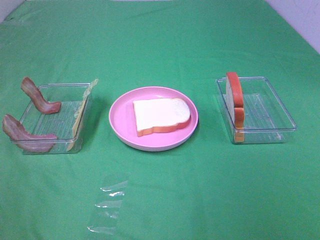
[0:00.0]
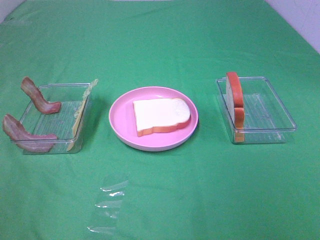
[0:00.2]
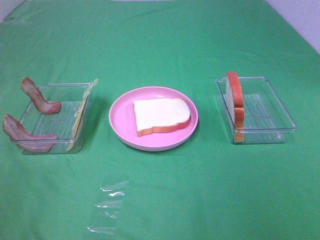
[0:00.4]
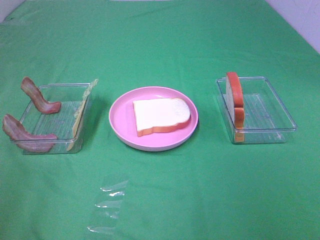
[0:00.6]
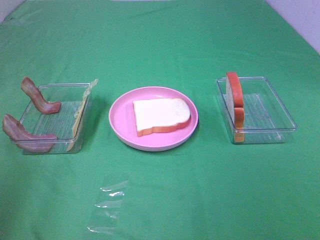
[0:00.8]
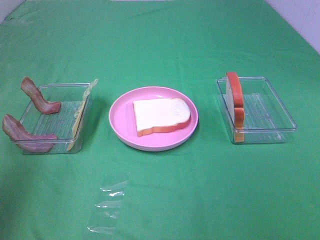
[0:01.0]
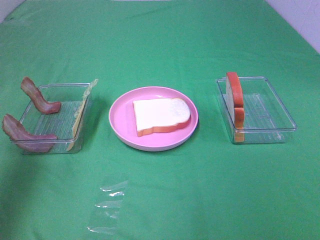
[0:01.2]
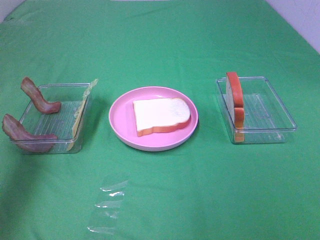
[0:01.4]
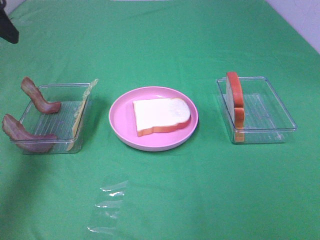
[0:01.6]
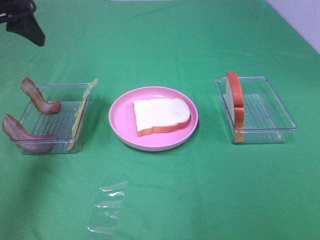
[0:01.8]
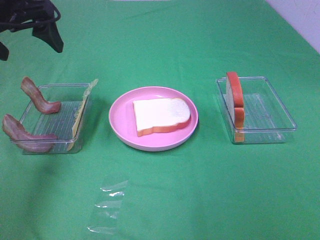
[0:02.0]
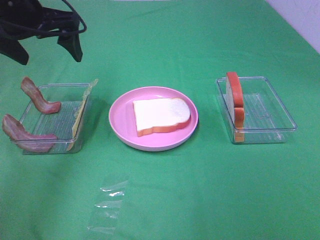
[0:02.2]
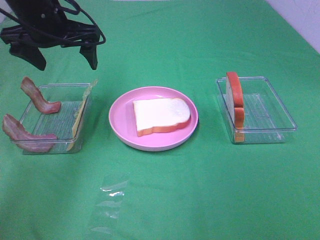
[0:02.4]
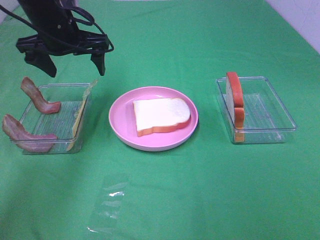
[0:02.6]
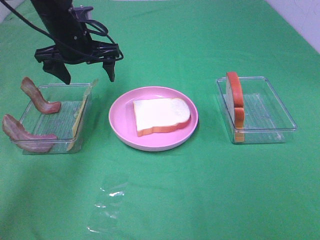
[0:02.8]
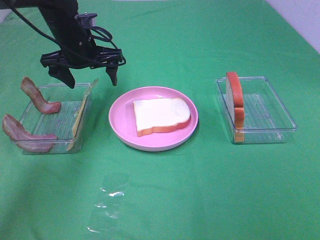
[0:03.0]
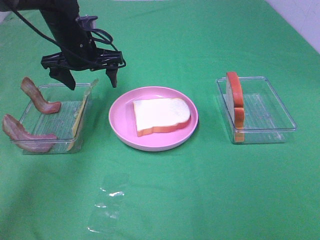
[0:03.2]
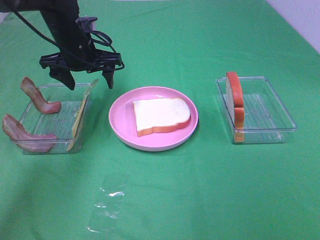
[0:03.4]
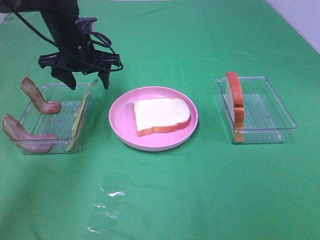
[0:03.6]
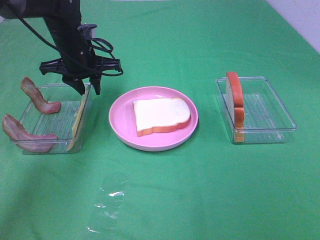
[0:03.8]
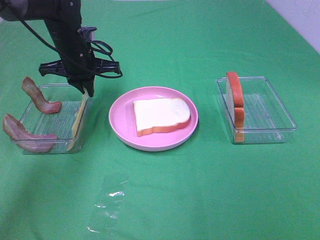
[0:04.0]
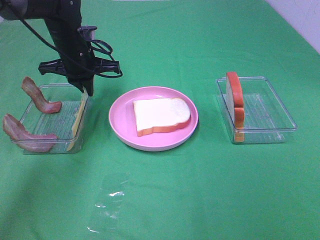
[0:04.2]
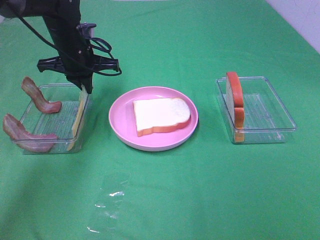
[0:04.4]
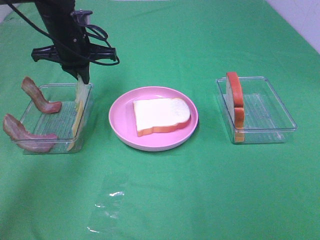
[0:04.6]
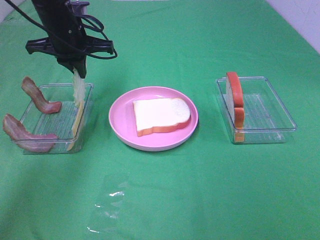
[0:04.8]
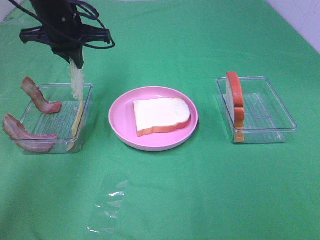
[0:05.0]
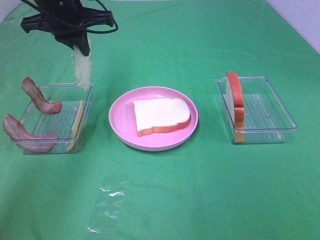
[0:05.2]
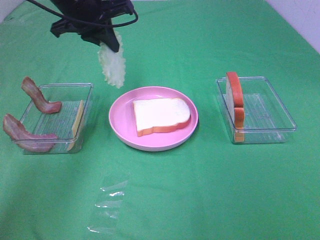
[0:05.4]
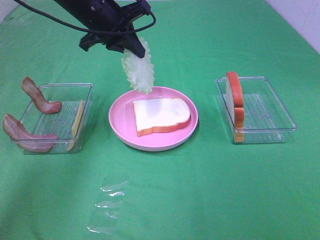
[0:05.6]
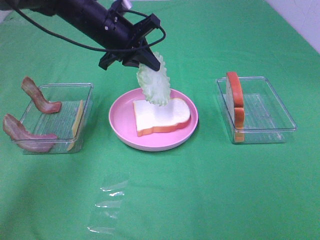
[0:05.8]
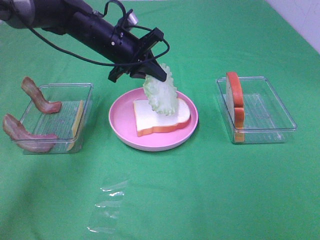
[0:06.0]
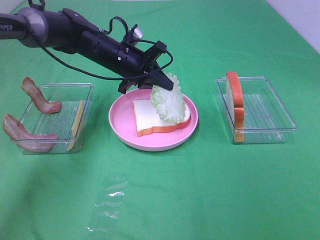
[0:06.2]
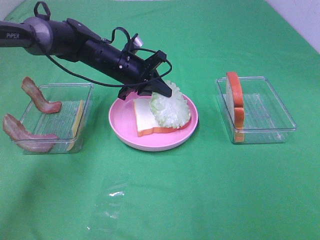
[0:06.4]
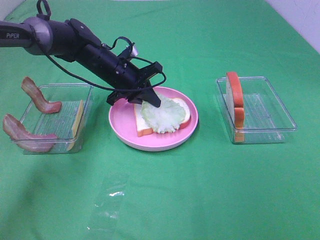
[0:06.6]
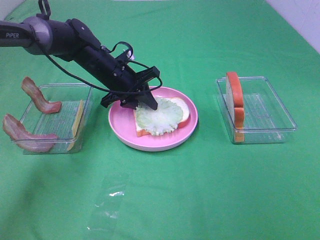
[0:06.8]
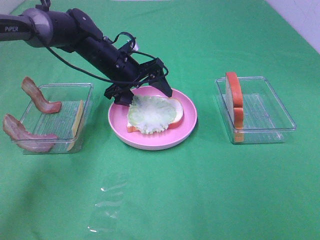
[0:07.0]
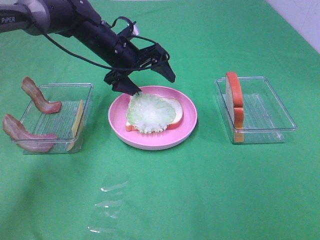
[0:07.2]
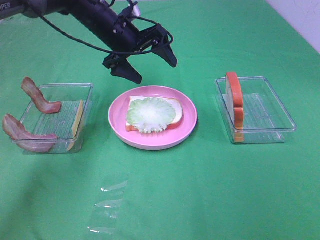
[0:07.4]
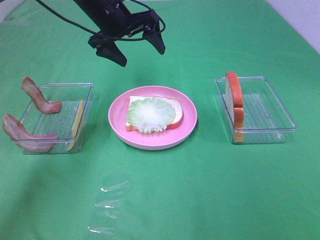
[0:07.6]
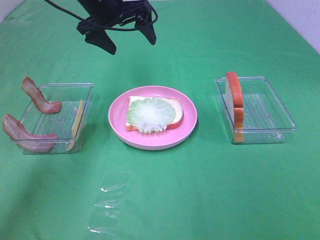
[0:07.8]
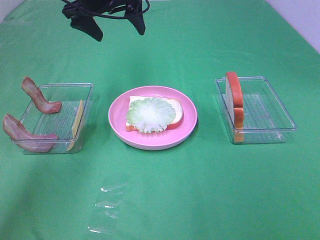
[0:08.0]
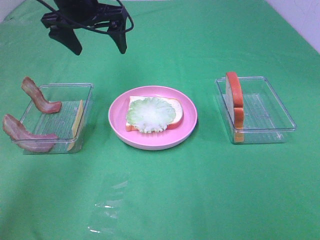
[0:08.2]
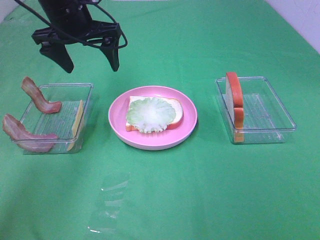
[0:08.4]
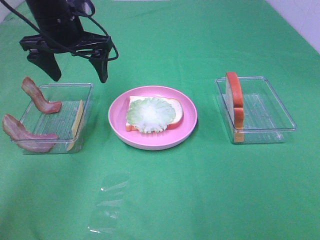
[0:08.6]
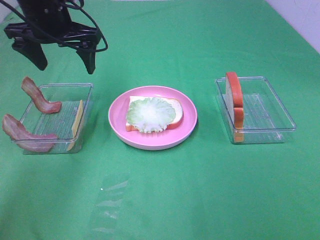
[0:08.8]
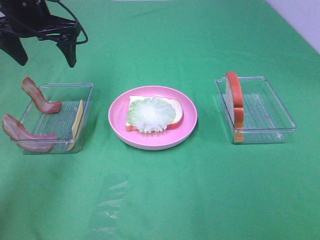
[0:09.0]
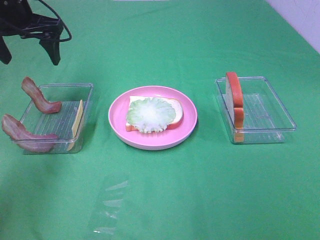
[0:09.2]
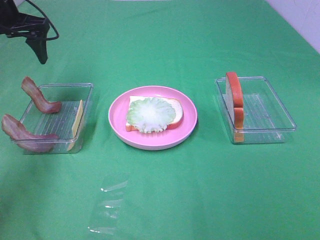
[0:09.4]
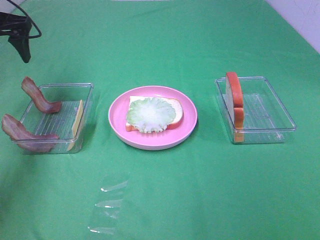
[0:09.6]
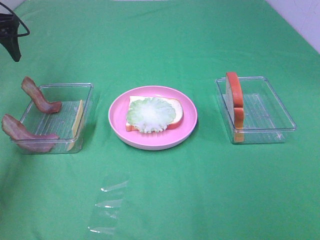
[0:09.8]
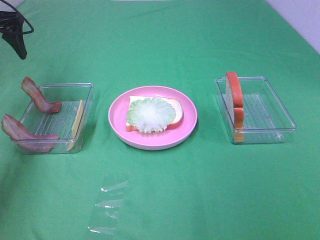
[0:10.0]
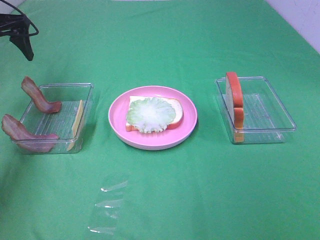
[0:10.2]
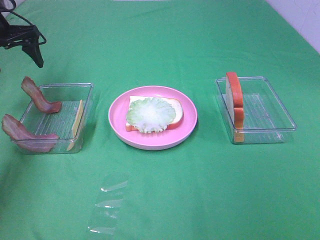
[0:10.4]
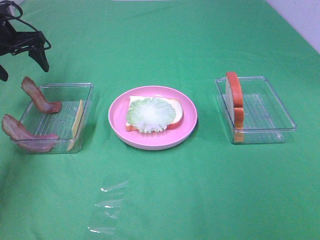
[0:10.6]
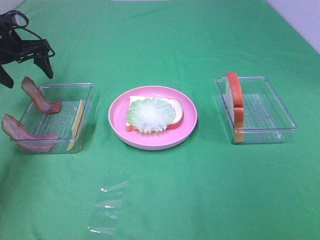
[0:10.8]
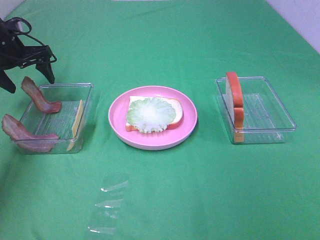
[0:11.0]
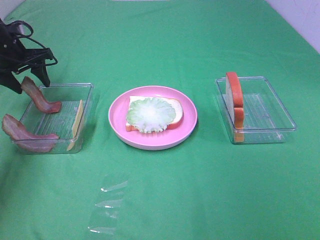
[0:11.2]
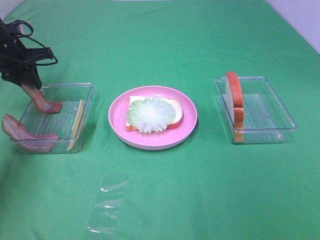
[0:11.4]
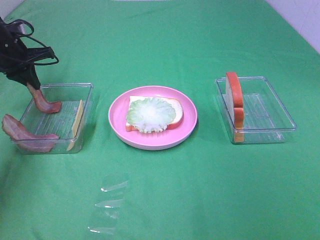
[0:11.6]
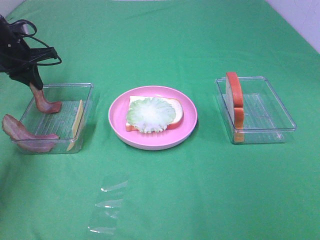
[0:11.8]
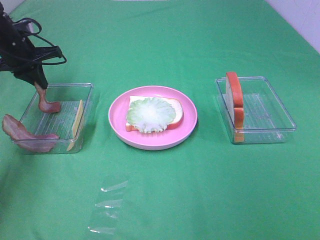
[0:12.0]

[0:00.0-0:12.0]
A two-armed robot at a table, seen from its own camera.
Task of the whole recording: Make sandwiches.
Step, 0:00.0 to 0:04.2: Left hand:grab the lettuce slice.
Step, 0:04.4 to 0:07.2: Left hand:place the lettuce slice on the bread slice.
Step, 0:07.4 to 0:11.8: Left hand:grab the bacon.
0:00.0 to 0:01.6: The left gripper travels forward by roughly 30 cm.
0:01.6 to 0:03.0: The left gripper moves forward, downward and to the right, roughly 25 cm.
0:03.0 to 0:04.4: The left gripper closes its fingers.
0:04.4 to 0:06.0: The left gripper goes roughly 5 cm to the right, and reaches some 10 cm upward, then returns.
0:06.0 to 0:07.6: The left gripper goes approximately 5 cm upward, and opens.
0:07.6 to 0:09.0: The left gripper heads to the left and backward, covering some 15 cm.
0:09.0 to 0:10.4: The left gripper travels to the left by about 10 cm.
0:10.4 to 0:12.0: The left gripper moves about 5 cm, and closes its fingers.

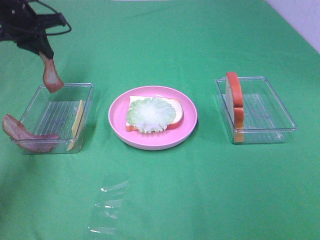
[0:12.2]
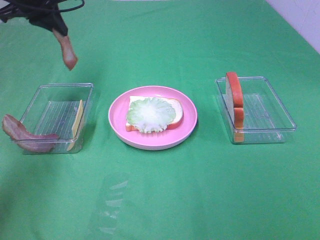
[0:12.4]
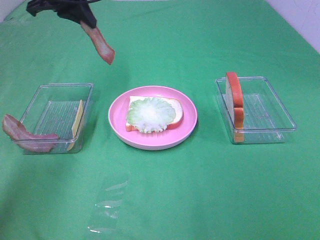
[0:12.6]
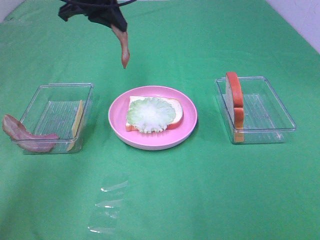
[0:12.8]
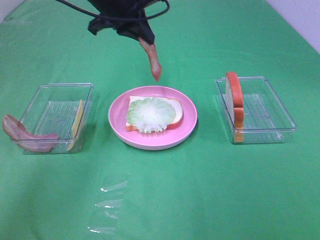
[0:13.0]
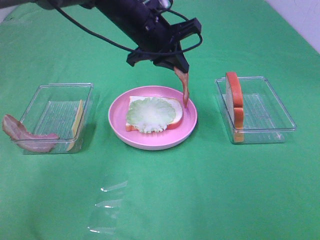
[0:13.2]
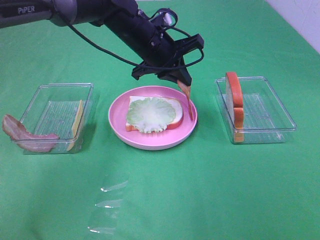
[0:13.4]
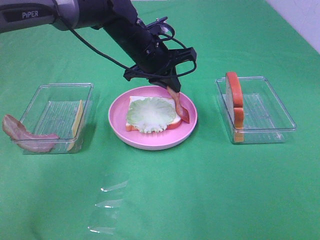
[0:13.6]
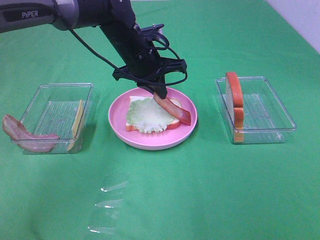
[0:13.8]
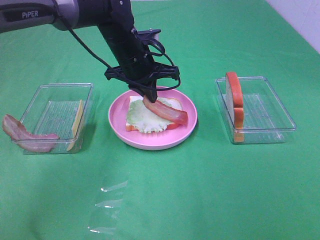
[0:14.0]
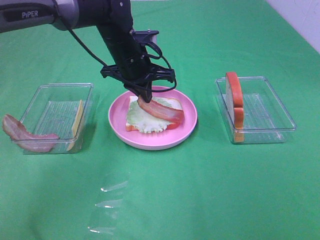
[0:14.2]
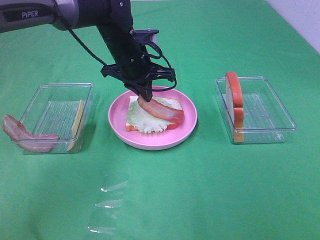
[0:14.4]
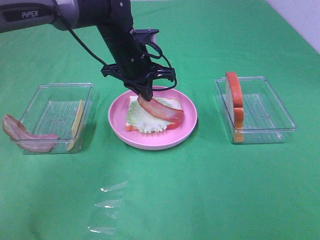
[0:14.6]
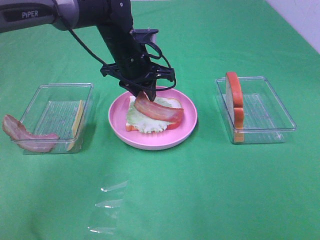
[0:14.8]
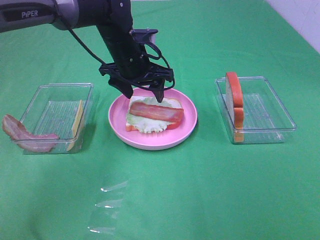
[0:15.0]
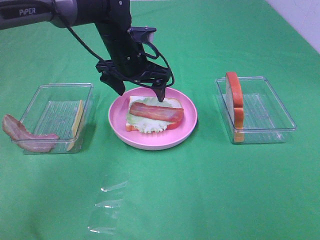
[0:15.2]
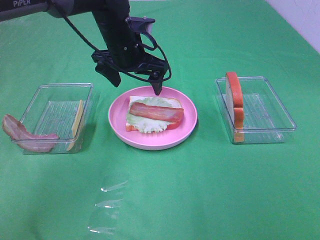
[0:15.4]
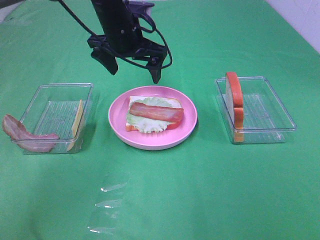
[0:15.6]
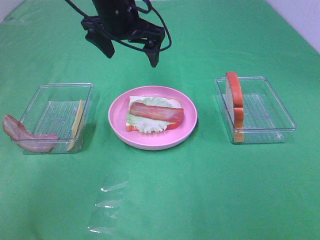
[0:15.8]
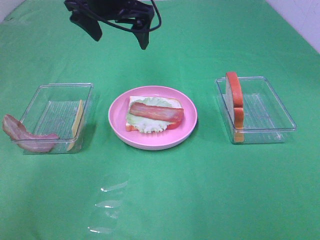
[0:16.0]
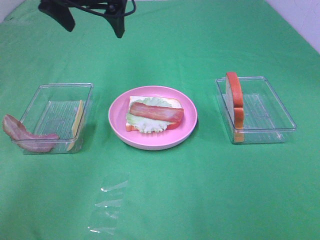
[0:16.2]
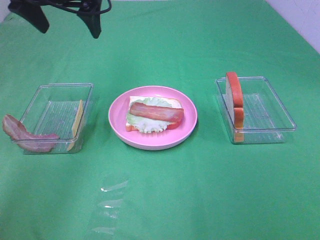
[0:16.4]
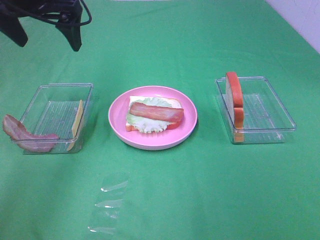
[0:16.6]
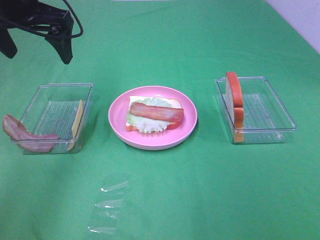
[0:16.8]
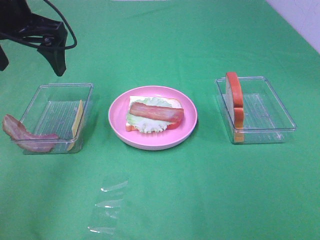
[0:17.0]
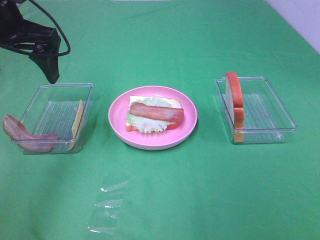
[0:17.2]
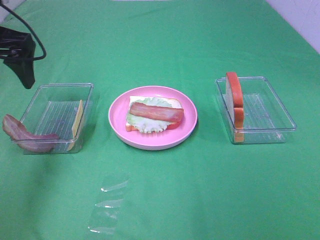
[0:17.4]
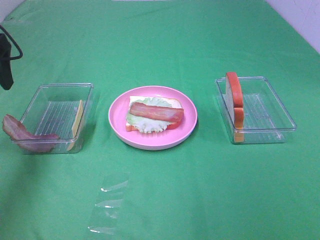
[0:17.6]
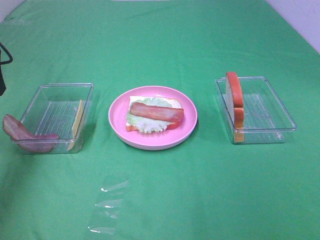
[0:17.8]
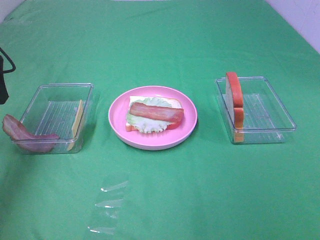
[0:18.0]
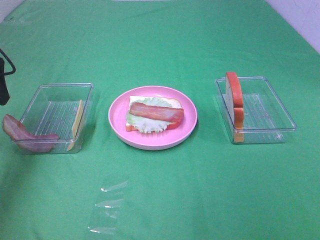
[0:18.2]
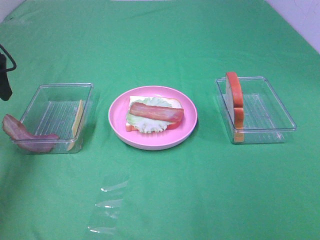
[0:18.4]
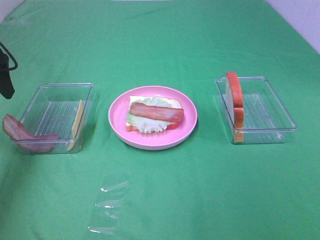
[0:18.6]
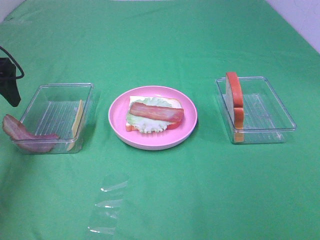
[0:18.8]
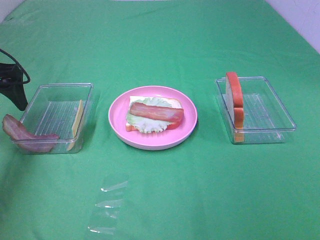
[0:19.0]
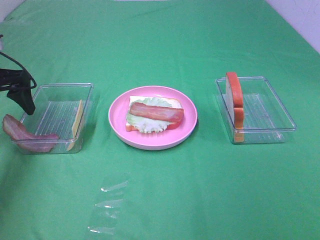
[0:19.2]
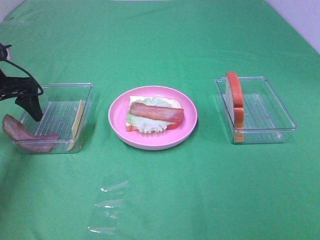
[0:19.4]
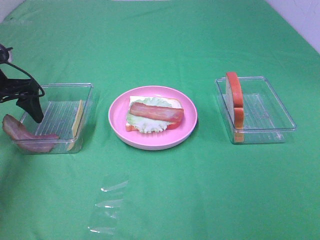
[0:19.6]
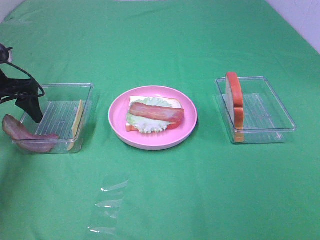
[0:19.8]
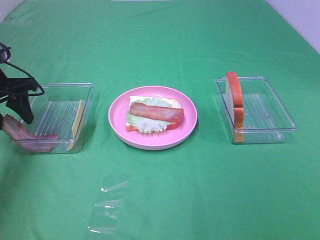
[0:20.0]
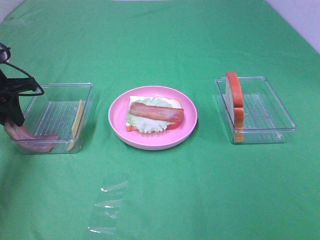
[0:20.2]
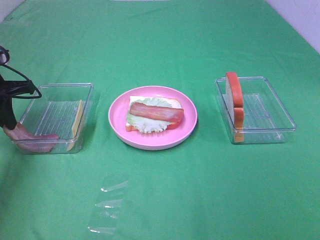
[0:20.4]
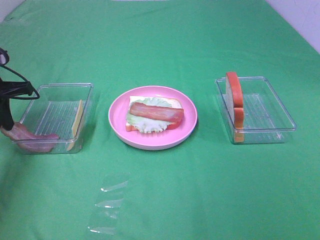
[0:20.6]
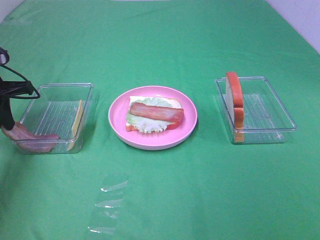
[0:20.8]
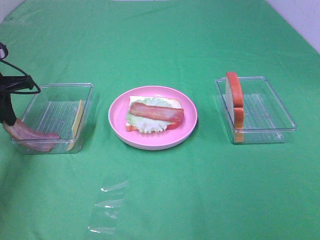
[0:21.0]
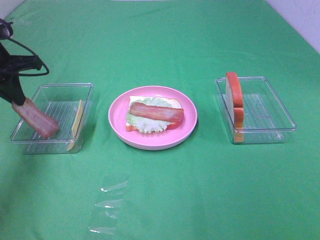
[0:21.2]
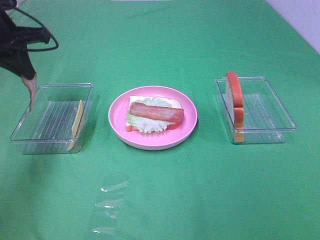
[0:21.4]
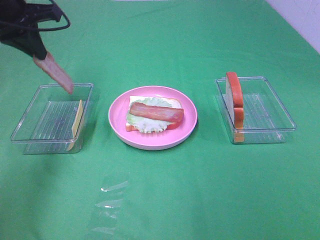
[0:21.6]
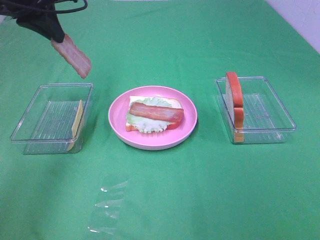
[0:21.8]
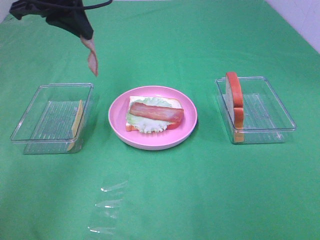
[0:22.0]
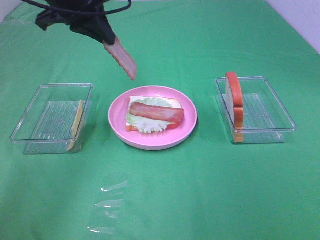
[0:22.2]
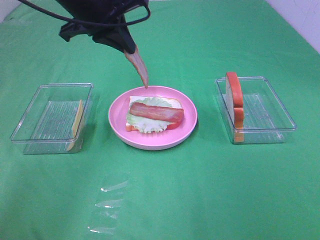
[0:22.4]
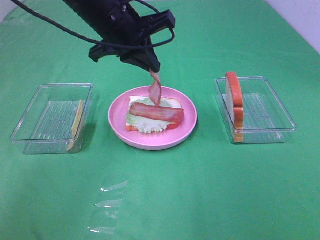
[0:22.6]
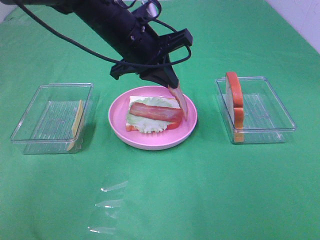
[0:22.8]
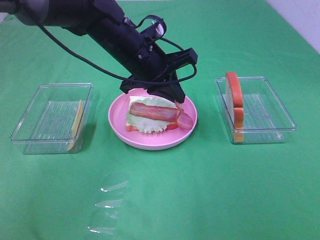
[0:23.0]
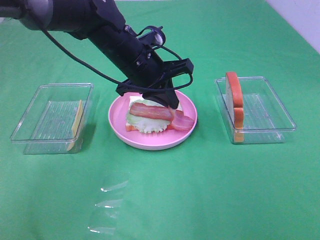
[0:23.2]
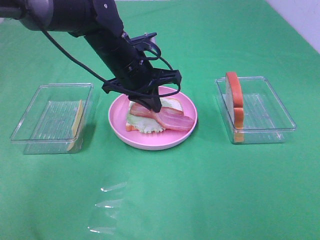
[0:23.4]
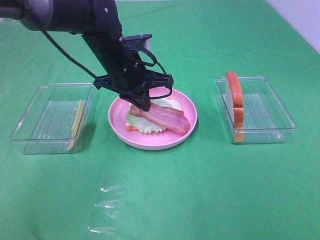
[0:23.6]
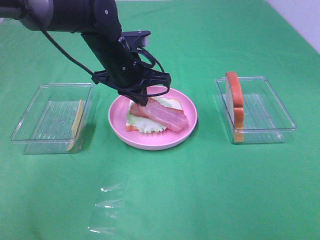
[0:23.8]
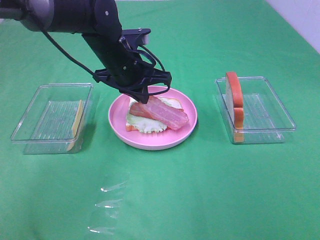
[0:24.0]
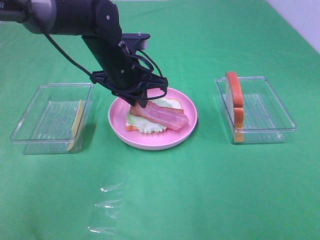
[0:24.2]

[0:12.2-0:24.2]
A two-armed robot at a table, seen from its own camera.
Task of the whole recording: Make sandwiches.
Step, 0:12.2 to 0:15.0: Left hand:place bacon on lettuce slice.
Step, 0:15.2 to 0:20.6: Left hand:grab the bacon.
0:12.2 to 0:13.8: The left gripper shifts approximately 25 cm to the right.
0:13.8 to 0:15.2: The left gripper opens up.
0:15.2 to 0:16.6: The left gripper travels upward and to the left by about 20 cm.
0:16.6 to 0:18.2: The left gripper goes about 15 cm to the left, backward and downward.
0:18.2 to 0:19.8: The left gripper goes some 10 cm downward.
0:19.8 to 0:21.2: The left gripper closes its fingers.
0:21.2 to 0:22.6: The left gripper goes approximately 20 cm to the right.
0:22.6 to 0:24.2: The left gripper heads downward, covering approximately 10 cm.
